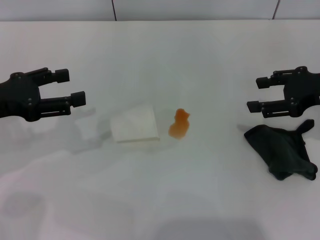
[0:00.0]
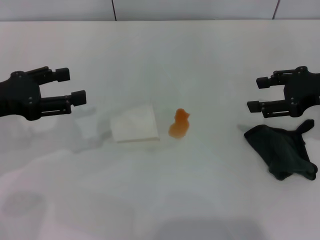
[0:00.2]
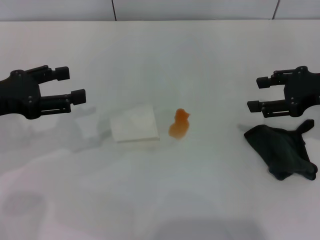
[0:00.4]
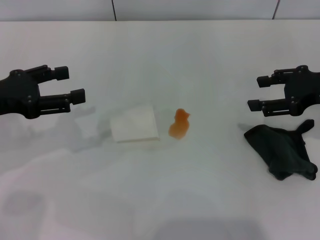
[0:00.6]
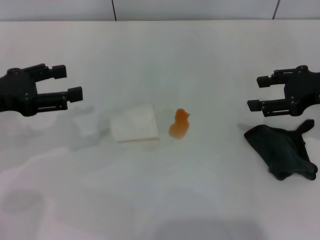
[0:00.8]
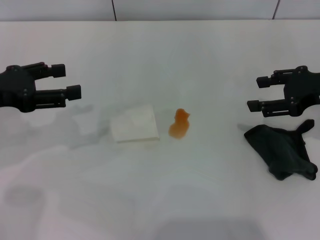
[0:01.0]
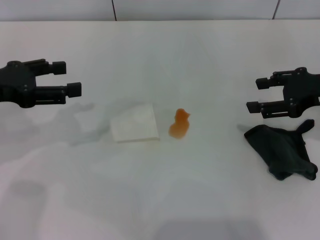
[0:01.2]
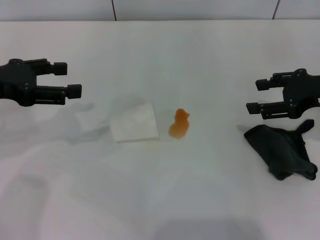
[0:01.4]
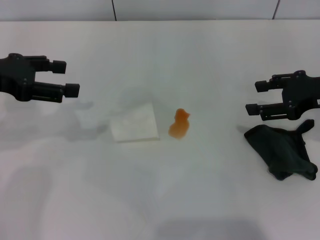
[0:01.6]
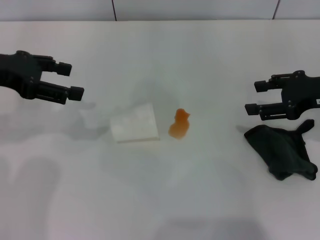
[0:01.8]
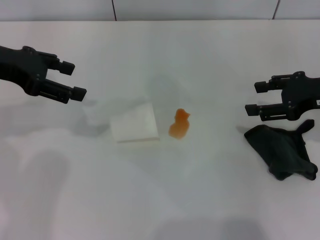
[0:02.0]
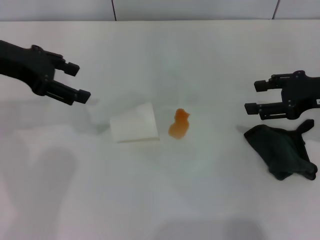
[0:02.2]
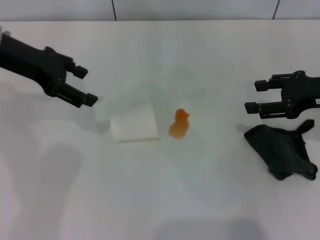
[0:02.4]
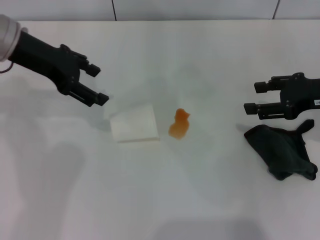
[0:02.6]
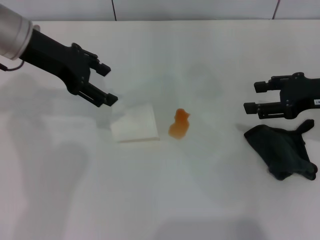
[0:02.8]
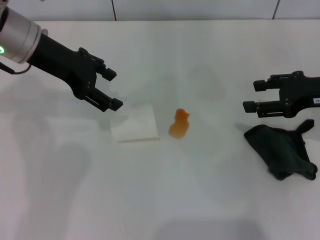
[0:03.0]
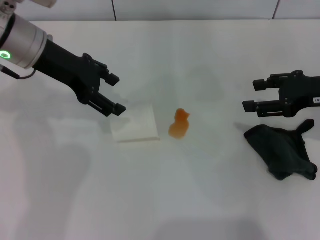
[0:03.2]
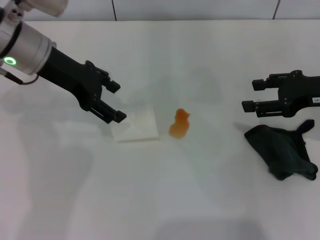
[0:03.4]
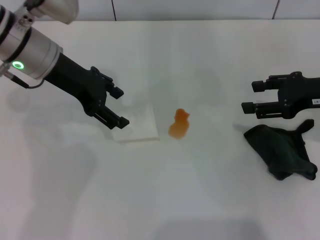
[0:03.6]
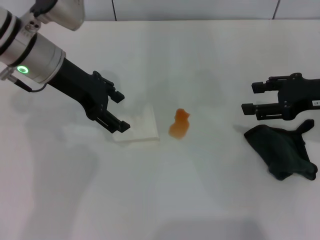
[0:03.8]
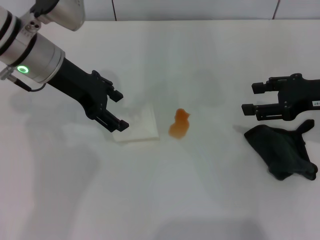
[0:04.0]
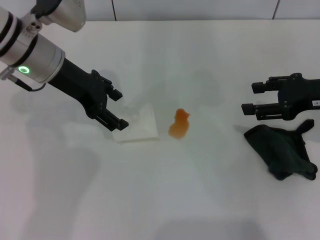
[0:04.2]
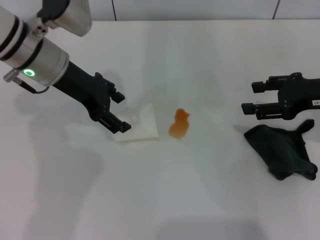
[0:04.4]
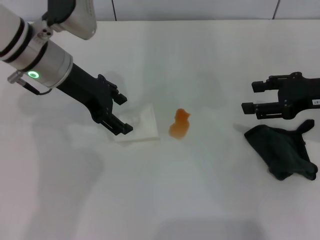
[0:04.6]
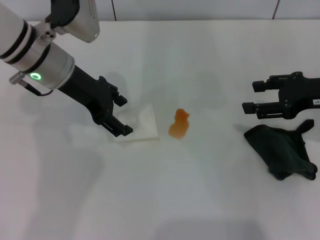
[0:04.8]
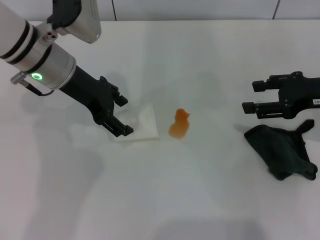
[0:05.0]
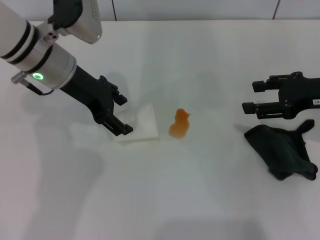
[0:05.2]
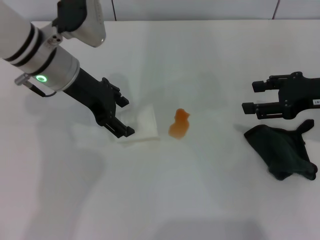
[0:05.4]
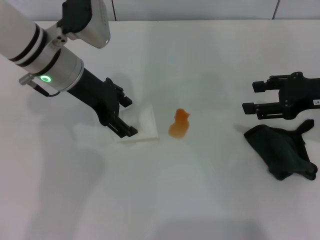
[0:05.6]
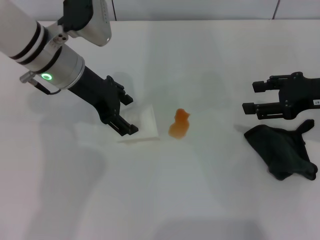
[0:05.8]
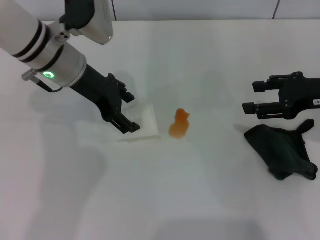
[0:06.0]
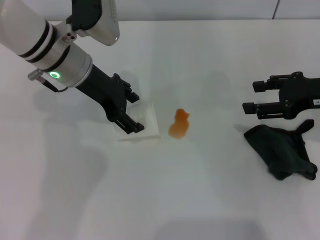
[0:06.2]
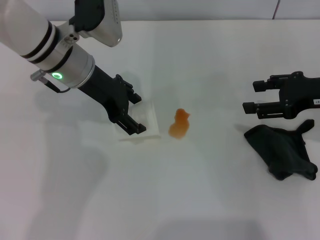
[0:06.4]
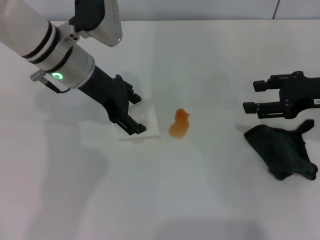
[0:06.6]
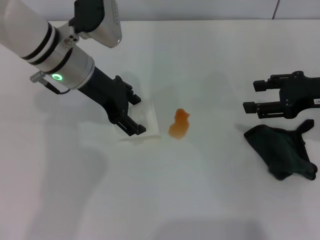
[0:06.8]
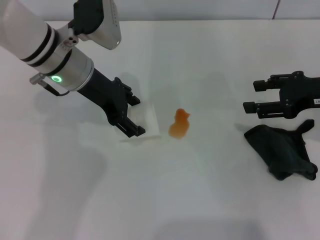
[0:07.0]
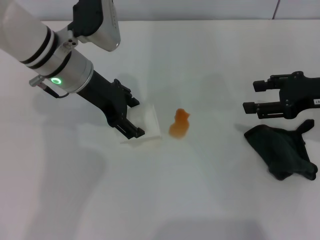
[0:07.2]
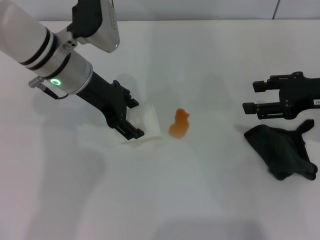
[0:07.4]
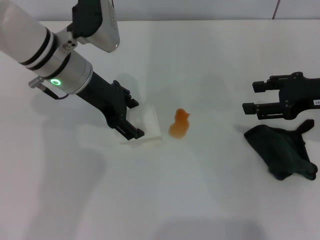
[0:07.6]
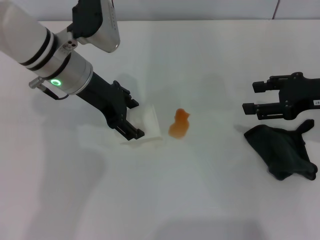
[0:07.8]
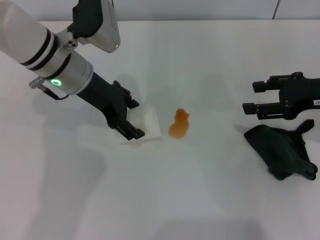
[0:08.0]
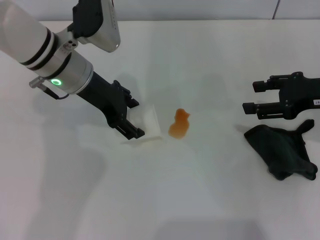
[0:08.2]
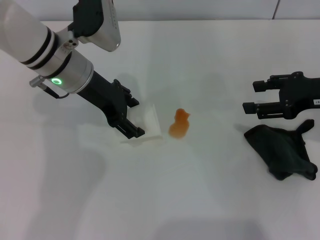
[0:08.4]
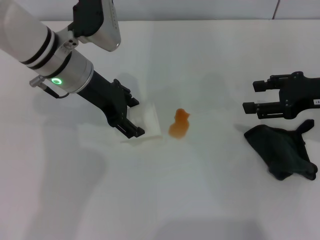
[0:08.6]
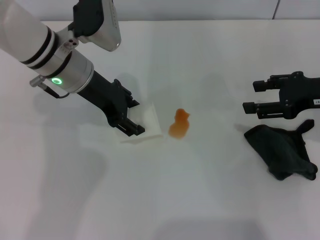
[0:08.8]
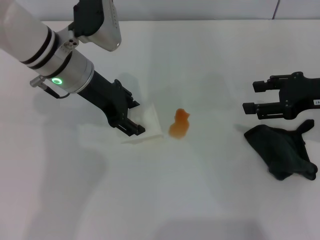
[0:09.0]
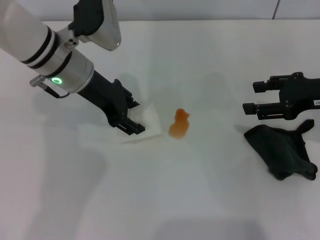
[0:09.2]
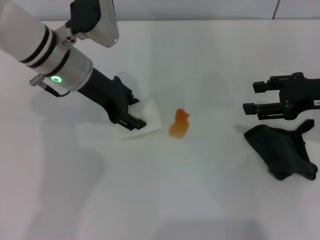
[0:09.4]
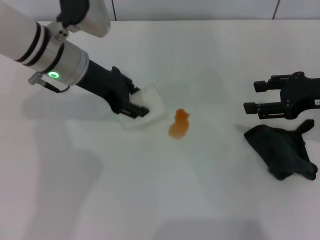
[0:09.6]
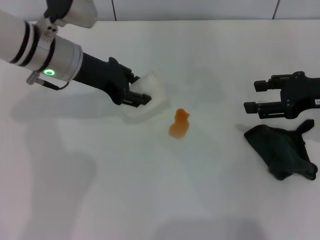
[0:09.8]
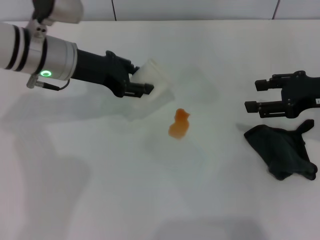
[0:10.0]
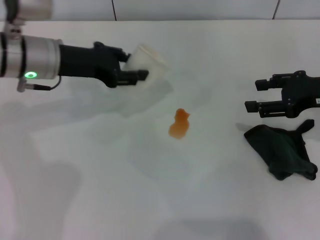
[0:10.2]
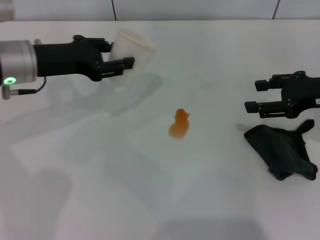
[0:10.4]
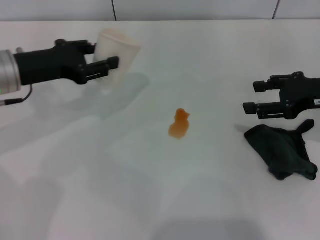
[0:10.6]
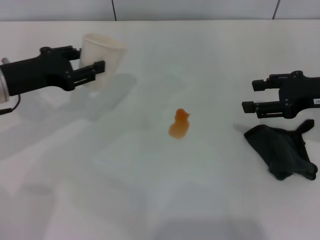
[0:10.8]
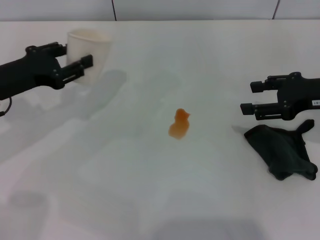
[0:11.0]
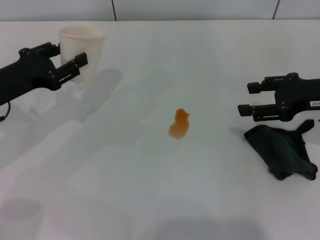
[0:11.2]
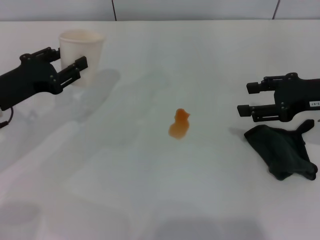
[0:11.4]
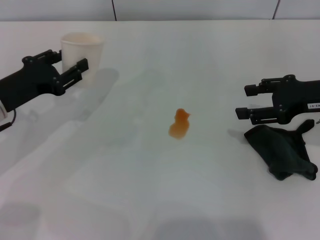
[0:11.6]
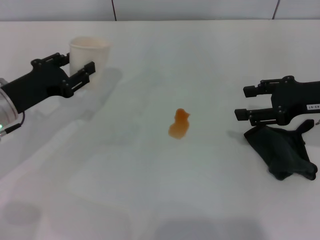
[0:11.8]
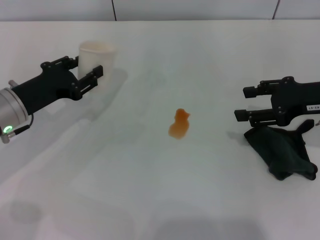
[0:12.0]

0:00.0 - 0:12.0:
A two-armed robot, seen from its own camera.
Step, 0:00.0 - 0:08.0: Grasp the paper cup with the left gripper.
0:00.0 - 0:01.6: The left gripper shifts by about 5 cm.
0:01.6 - 0:03.0: The left gripper goes some 10 cm to the right and forward.
0:03.0 - 0:04.4: There are only small adjustments of the grippers.
0:04.4 - 0:06.0: The grippers make only small movements.
0:06.0 - 0:07.6: Both grippers stay put.
0:07.6 - 0:09.0: The left gripper closes its fingers.
0:09.0 - 0:10.4: The left gripper travels to the left by about 10 cm, and closes its fingers.
0:10.4 - 0:12.0: The left gripper is displaced downward by roughly 10 cm.

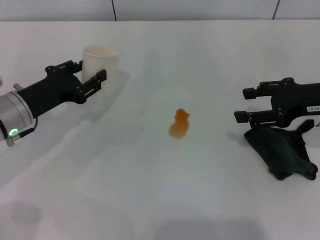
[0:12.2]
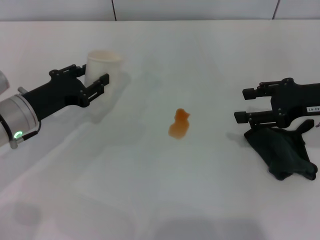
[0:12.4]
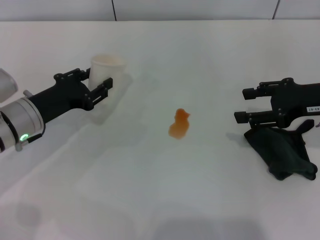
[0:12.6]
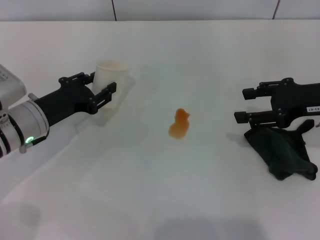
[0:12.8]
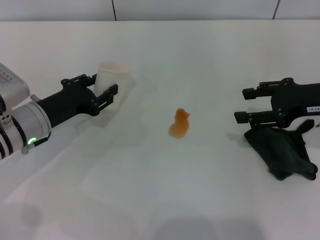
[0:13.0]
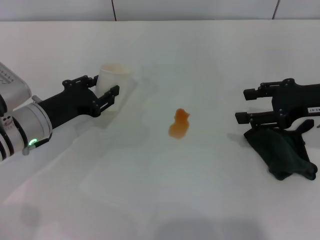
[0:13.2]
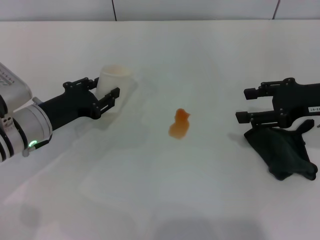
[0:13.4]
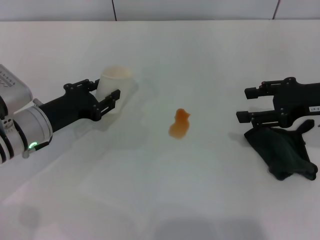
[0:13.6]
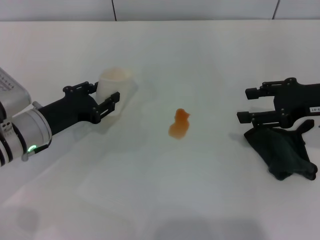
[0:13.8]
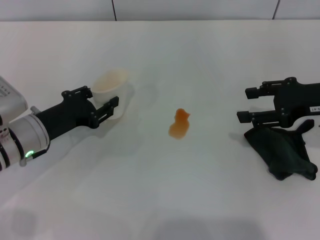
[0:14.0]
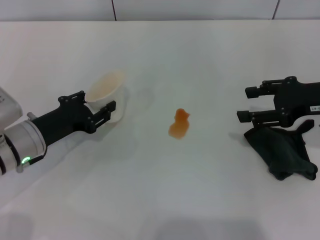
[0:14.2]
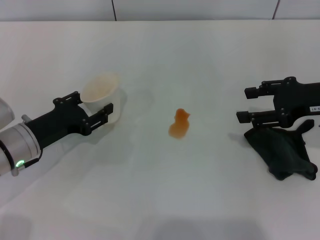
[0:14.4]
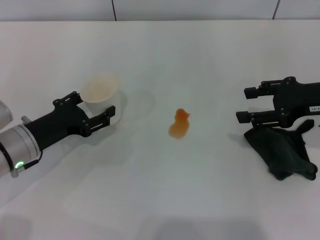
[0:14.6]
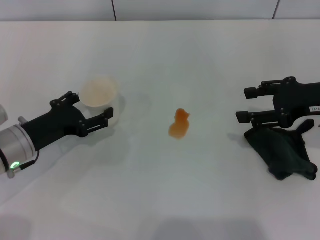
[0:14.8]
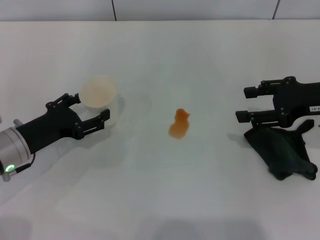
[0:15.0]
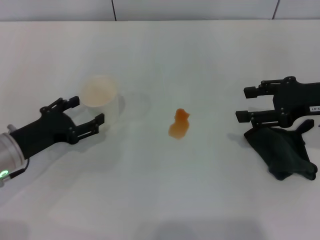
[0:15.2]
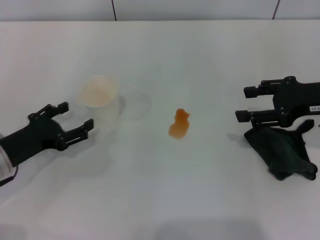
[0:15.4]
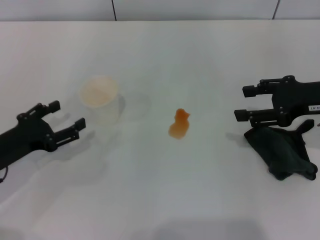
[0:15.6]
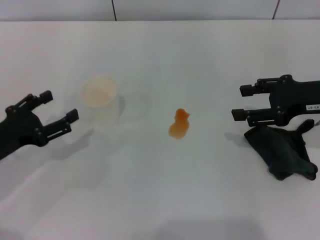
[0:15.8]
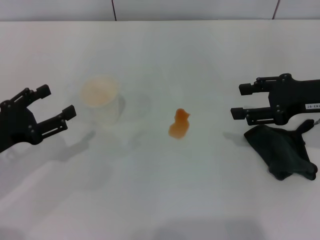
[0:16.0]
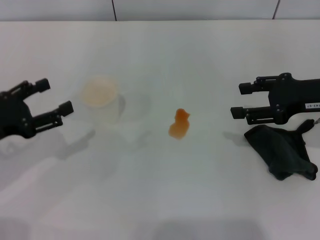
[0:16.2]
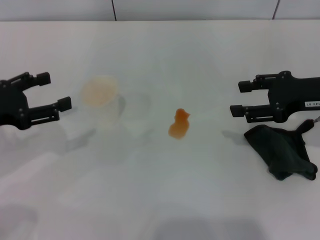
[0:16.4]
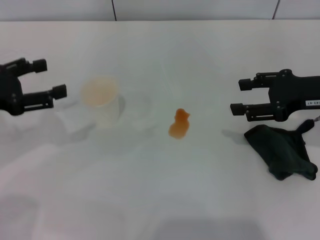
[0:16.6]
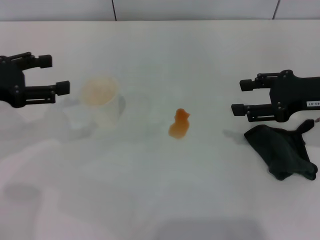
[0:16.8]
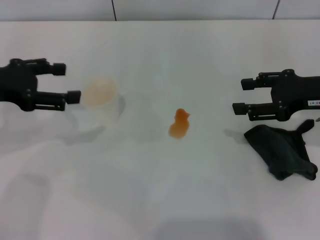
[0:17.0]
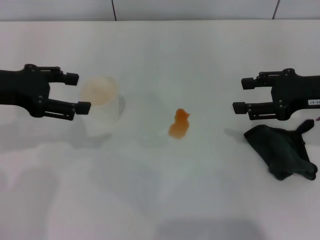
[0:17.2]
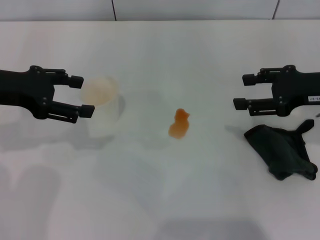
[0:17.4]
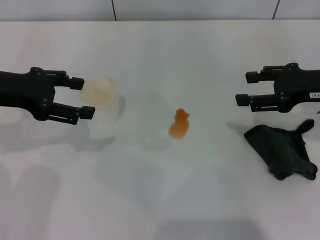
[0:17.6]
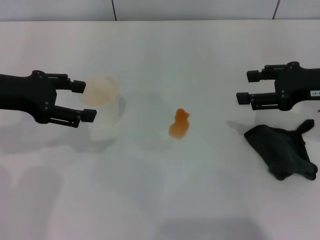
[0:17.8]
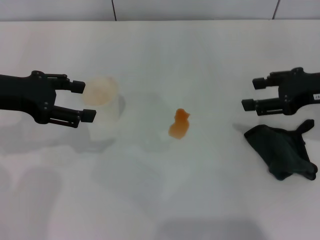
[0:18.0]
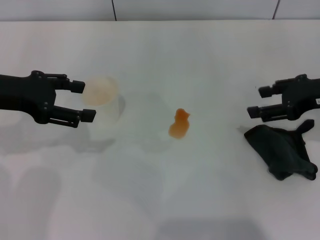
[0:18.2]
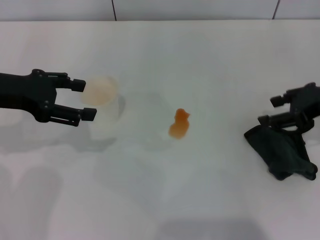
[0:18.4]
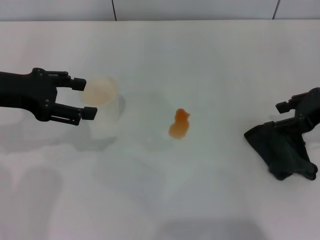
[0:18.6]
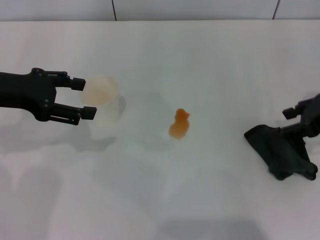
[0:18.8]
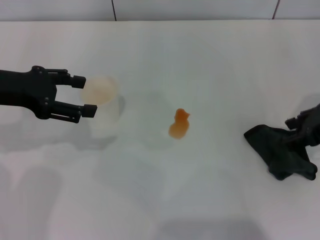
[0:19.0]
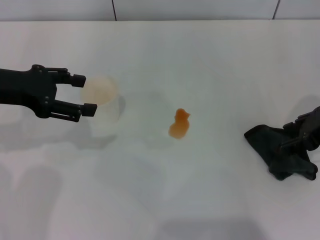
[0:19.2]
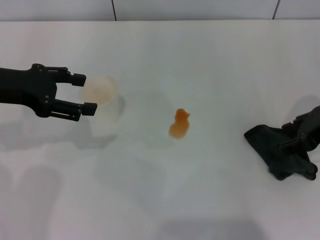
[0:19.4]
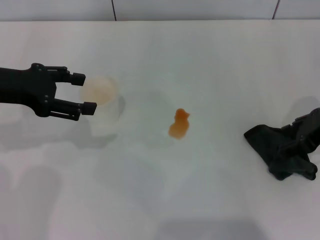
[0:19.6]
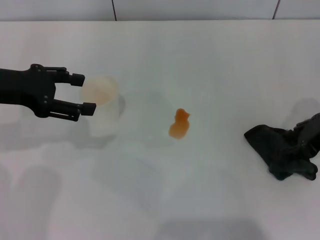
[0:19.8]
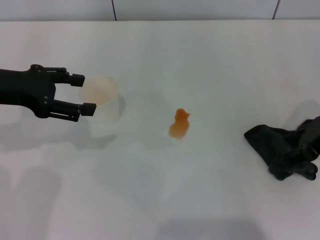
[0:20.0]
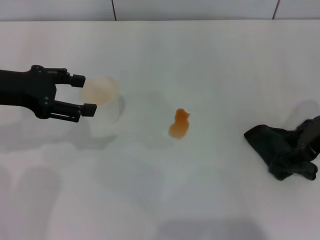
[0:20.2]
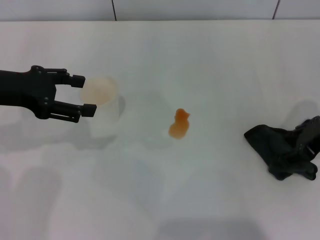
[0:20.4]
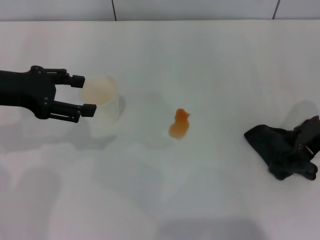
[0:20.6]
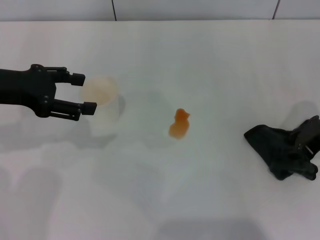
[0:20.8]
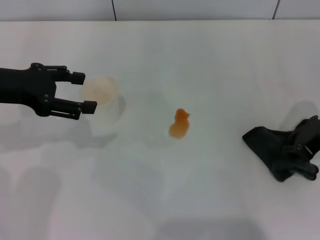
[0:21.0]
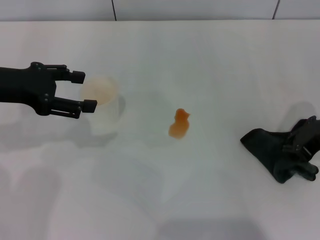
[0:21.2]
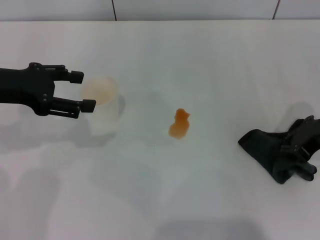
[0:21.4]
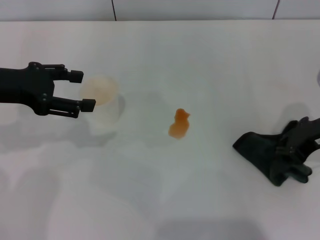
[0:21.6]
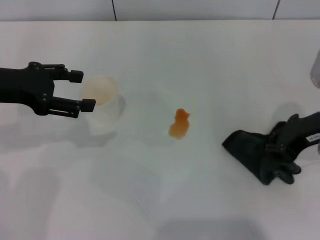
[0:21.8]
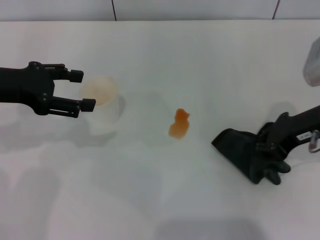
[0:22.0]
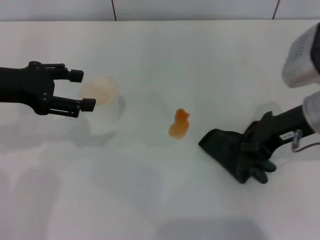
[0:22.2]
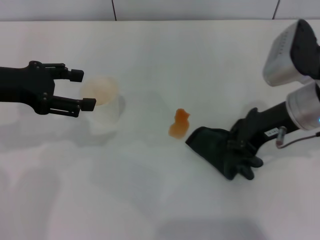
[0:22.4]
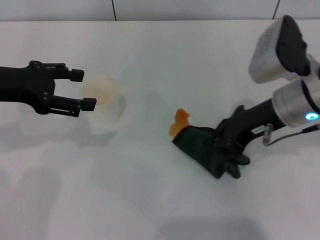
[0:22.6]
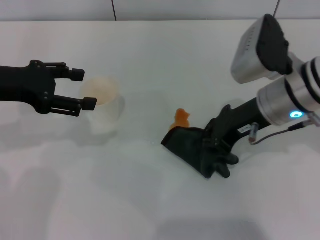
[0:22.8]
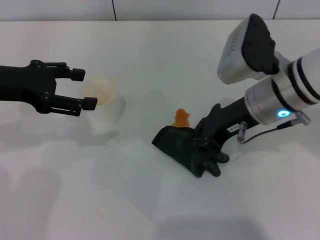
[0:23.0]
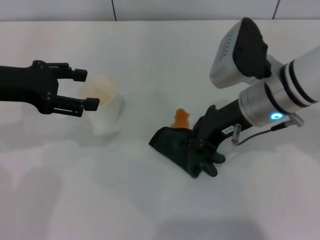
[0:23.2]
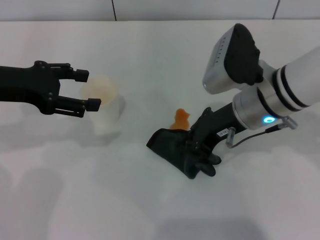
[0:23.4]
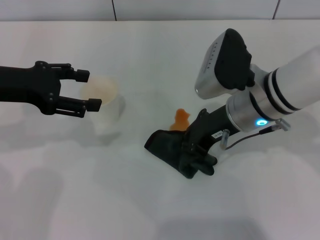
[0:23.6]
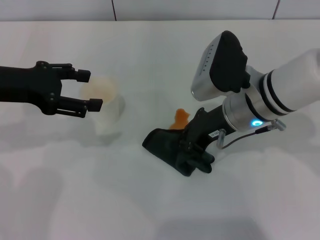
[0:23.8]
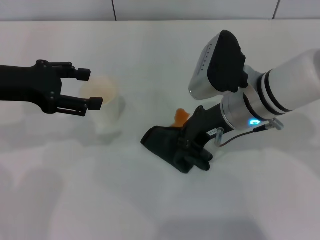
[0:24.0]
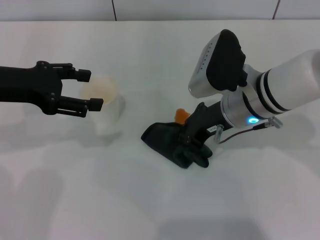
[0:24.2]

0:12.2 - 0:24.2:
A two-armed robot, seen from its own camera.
Step, 0:12.2 - 0:15.6: Stand the paper cup upright with the left gripper.
Step, 0:15.8 - 0:21.0: Grasp the rag with the right gripper.
0:12.2 - 0:13.8: The grippers stay close to where they were, moving slightly.
0:13.8 - 0:15.2: The left gripper shifts by roughly 5 cm, and opens up.
0:15.2 - 0:16.6: The left gripper moves upward and to the left, approximately 15 cm.
0:16.6 - 0:18.2: The left gripper changes place by approximately 5 cm.
0:19.8 - 0:21.2: The right gripper closes.
0:21.2 - 0:22.6: The right gripper travels to the left by some 10 cm.
0:22.6 - 0:24.2: The right gripper goes approximately 5 cm to the left.
